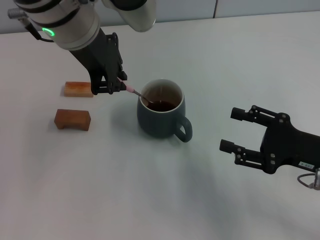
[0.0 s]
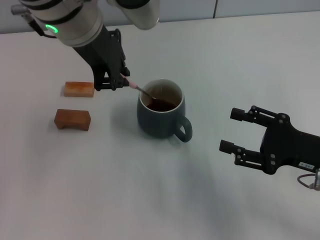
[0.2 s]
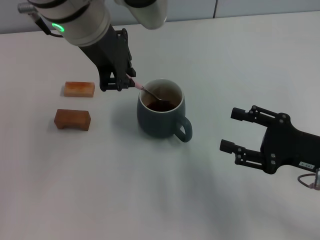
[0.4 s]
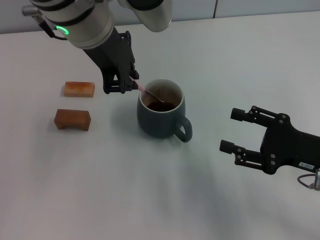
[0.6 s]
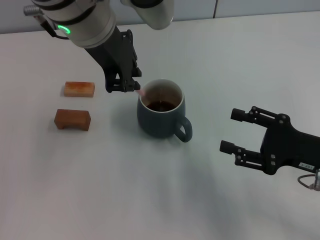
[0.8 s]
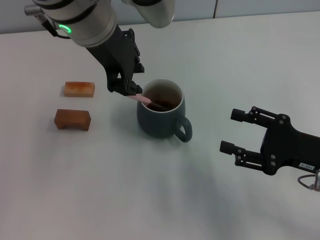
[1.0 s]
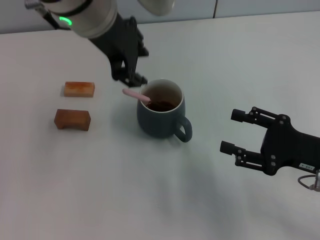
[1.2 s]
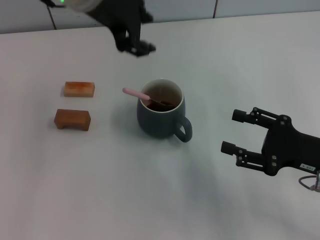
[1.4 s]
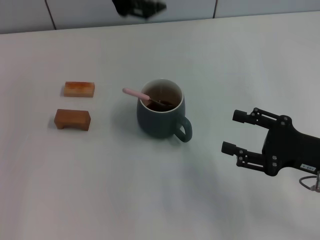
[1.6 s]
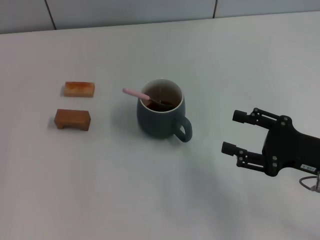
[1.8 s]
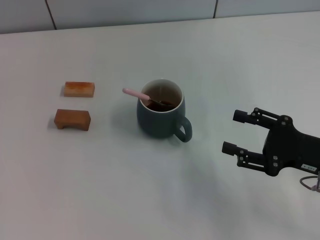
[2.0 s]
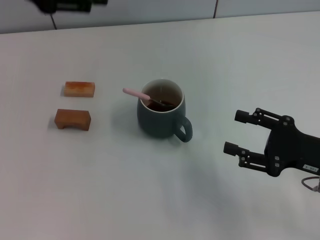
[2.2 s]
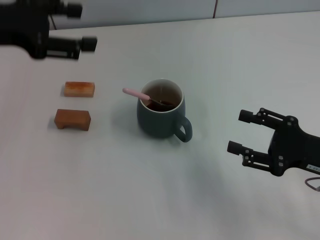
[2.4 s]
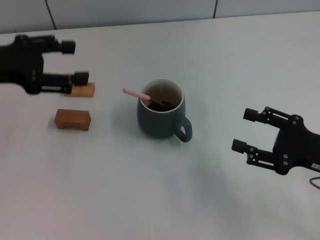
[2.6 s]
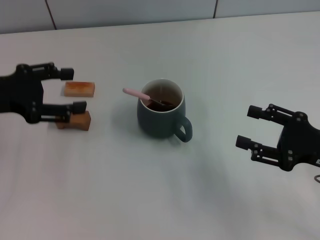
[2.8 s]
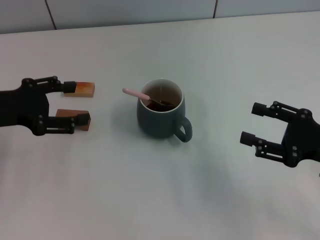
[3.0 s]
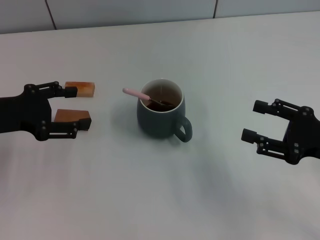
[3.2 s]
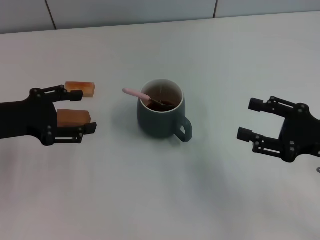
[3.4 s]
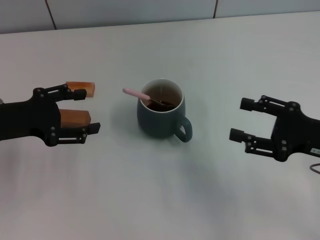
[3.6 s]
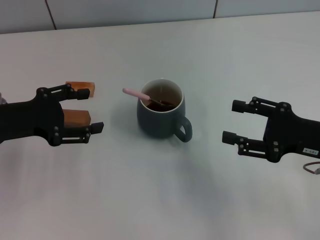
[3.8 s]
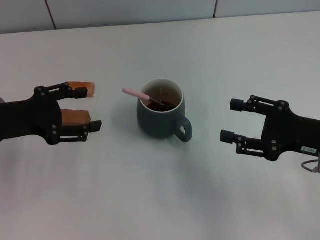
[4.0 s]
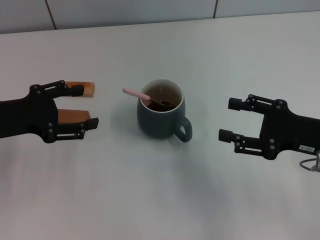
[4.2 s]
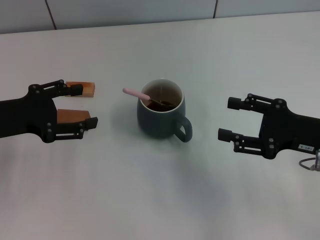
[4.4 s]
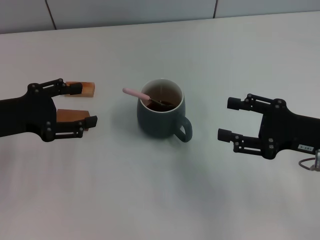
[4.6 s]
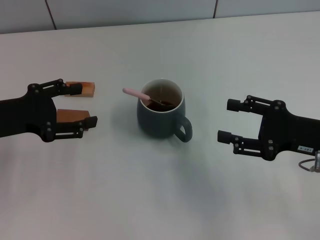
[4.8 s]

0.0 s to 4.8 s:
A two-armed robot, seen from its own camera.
Task of the whole recording: Move the grey cup to the center, lift the pink spoon, stir it three times in the cup, and put the spoon into the cup.
0.0 to 1.6 s: The left gripper opens its fingers.
1.6 to 3.2 s: The left gripper shifts approximately 25 cm to the left and downward, and opens up.
3.2 to 4.8 s: The grippers make only small movements.
